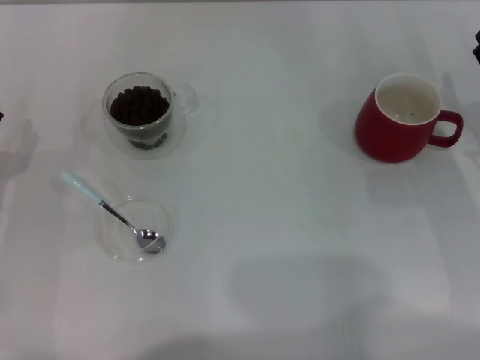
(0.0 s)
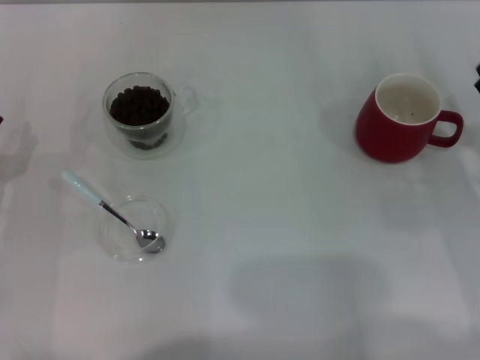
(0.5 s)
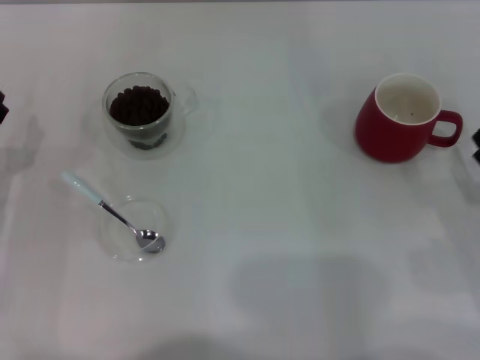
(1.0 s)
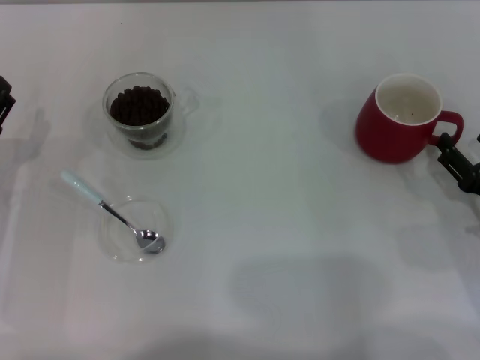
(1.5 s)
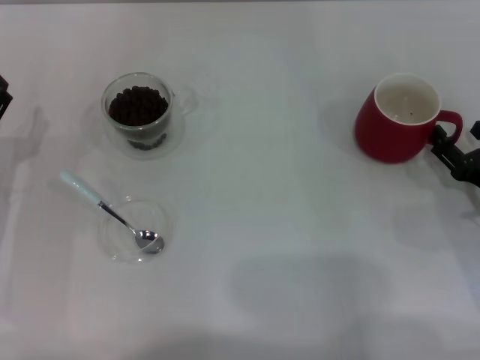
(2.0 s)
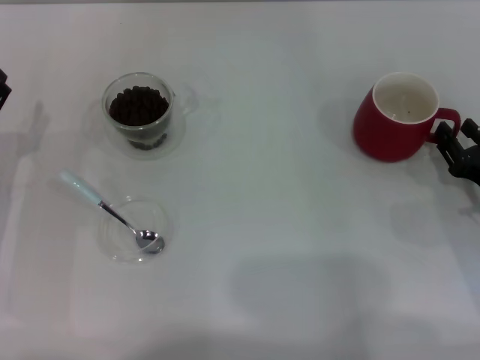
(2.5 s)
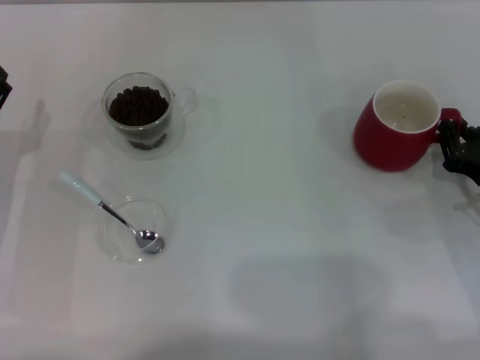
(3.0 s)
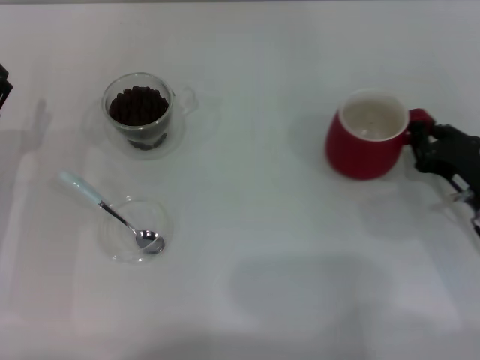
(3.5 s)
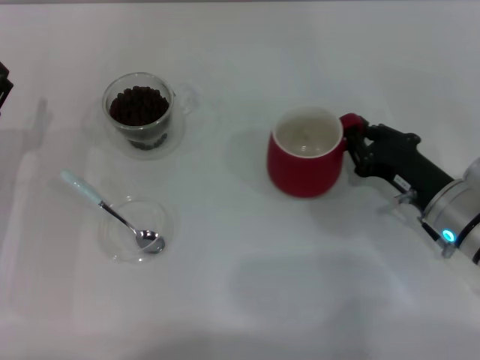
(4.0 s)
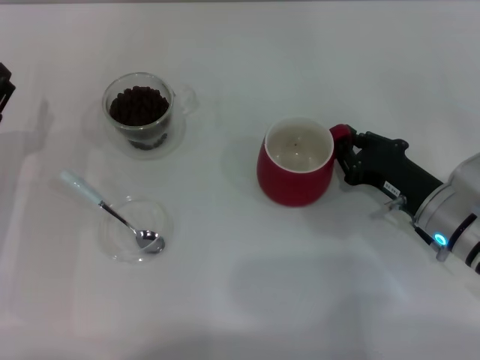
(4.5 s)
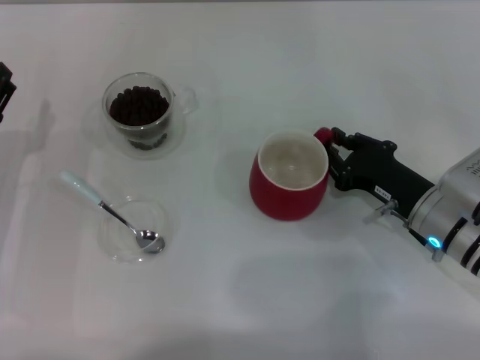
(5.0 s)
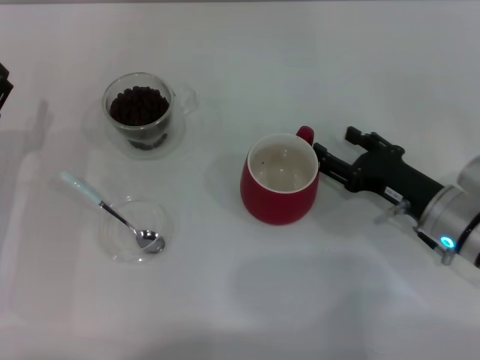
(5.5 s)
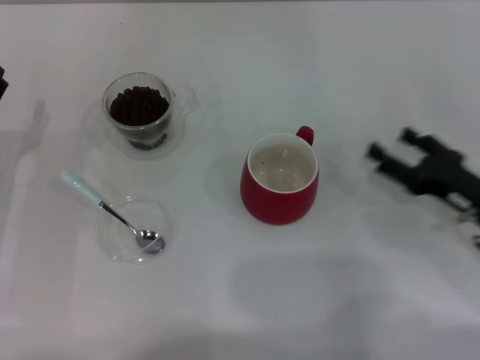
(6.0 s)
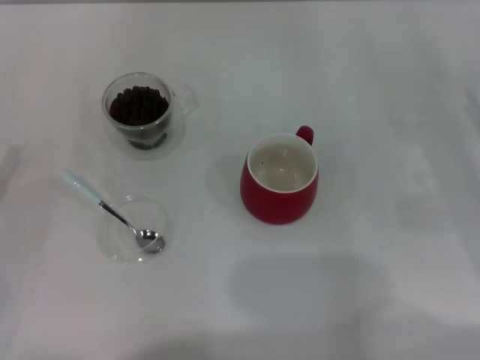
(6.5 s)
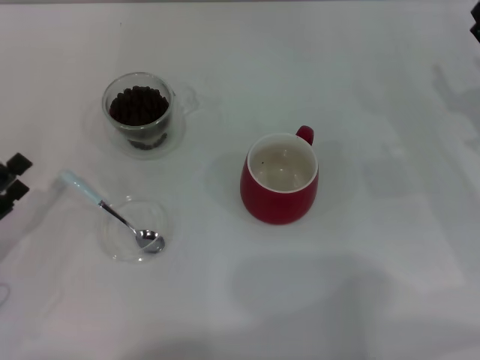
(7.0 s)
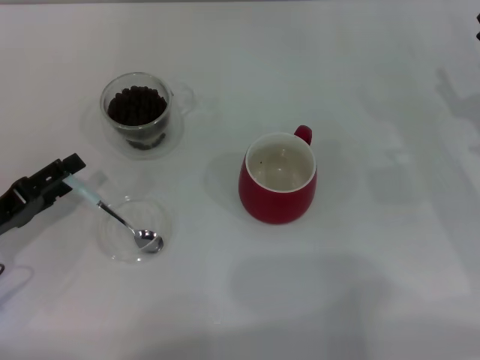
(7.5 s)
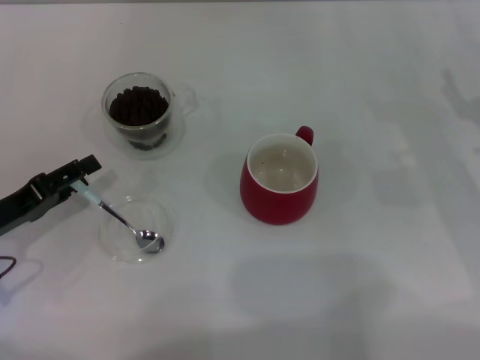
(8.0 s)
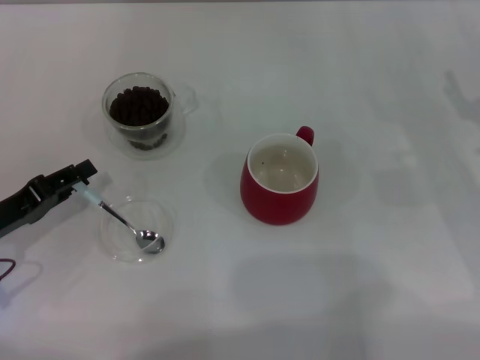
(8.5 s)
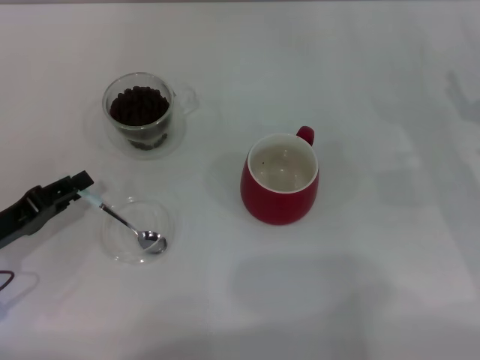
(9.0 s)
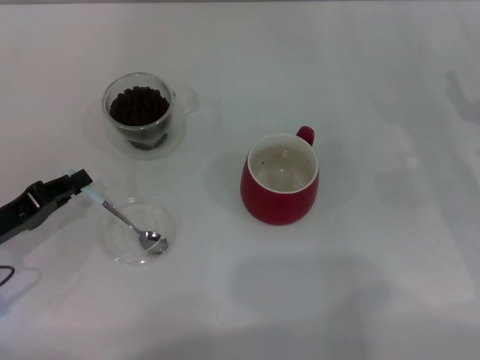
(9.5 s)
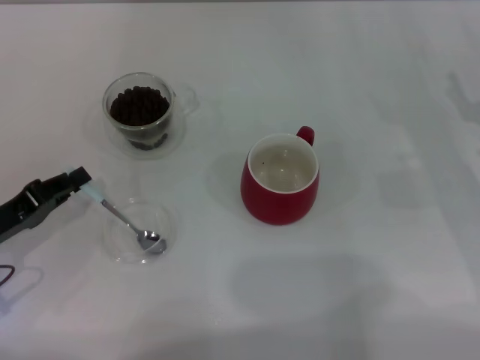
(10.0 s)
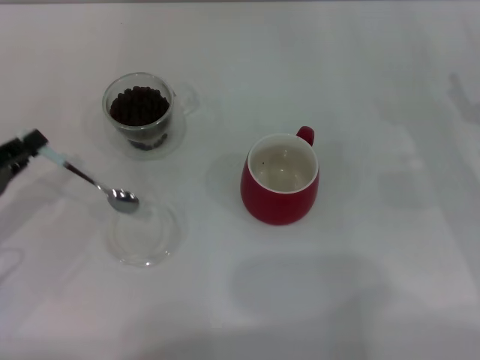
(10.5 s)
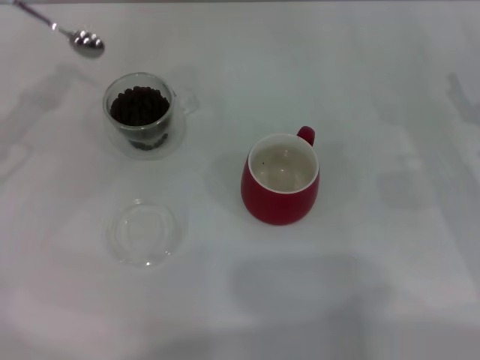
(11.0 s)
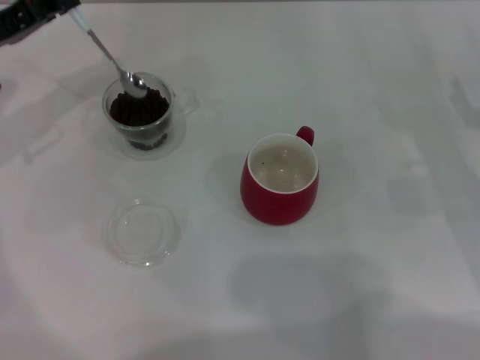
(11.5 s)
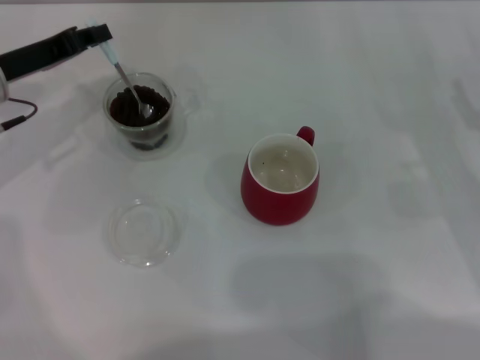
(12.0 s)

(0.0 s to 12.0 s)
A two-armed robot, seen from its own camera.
Task of the whole recording: Use a blue spoon to take out the coffee beans from the glass and pour them into the red cup.
Step, 0.0 s - 5.5 s: Move the cup to the center of view with the left gripper.
Step, 6.0 s - 10.0 s: Pick up the spoon with the right gripper.
0.0 s - 2.0 s: The right gripper goes some 5 cm backward.
2.0 s - 4.0 s: The right gripper travels to the left by roughly 10 cm, and closes.
4.0 s - 6.0 s: The right gripper heads to the right, covering roughly 5 cm, and opens.
6.0 s - 8.0 s: The right gripper shifts by about 10 cm.
8.0 s - 10.0 s: The left gripper closes up.
10.0 s - 12.0 s: The left gripper is displaced forward and upward by about 15 cm.

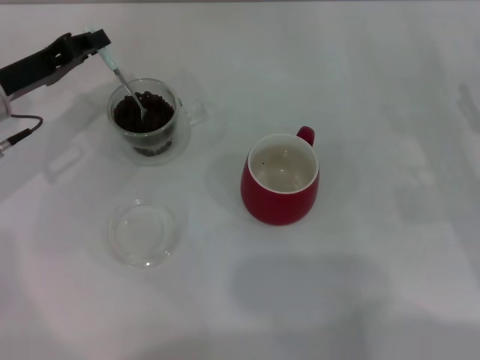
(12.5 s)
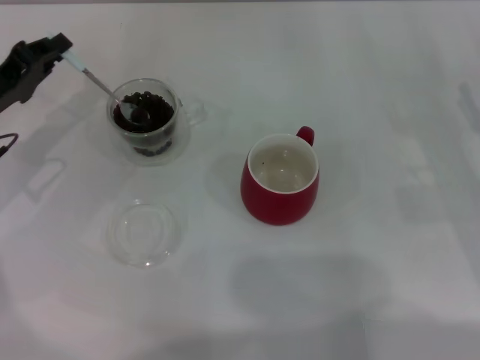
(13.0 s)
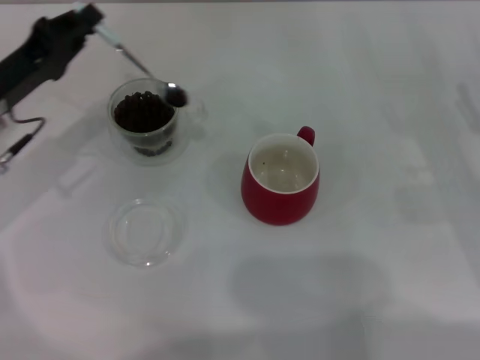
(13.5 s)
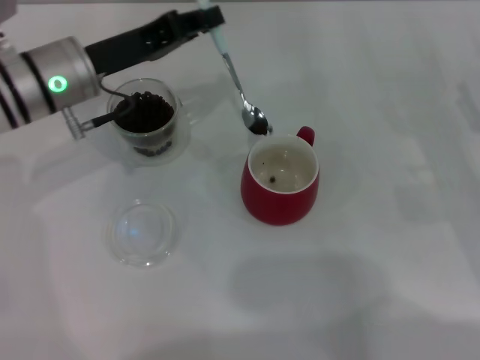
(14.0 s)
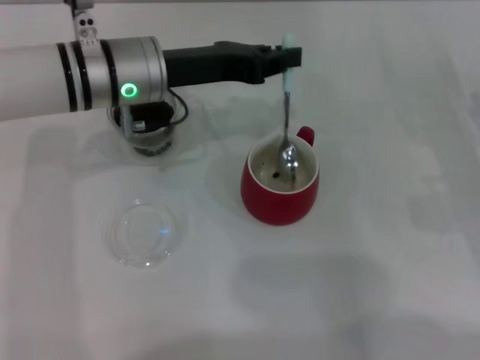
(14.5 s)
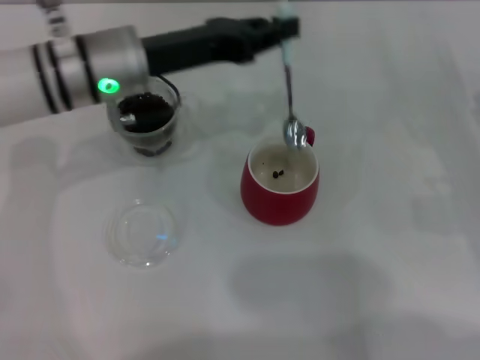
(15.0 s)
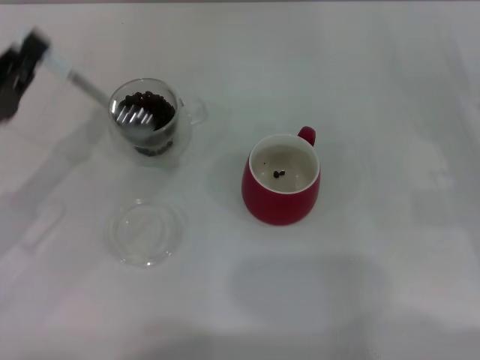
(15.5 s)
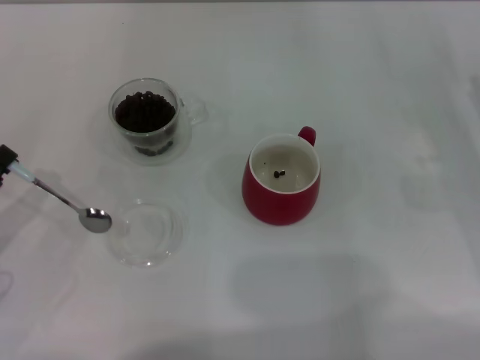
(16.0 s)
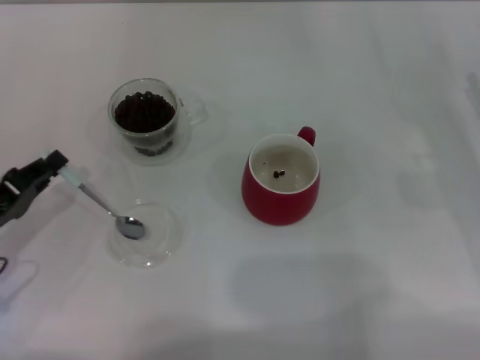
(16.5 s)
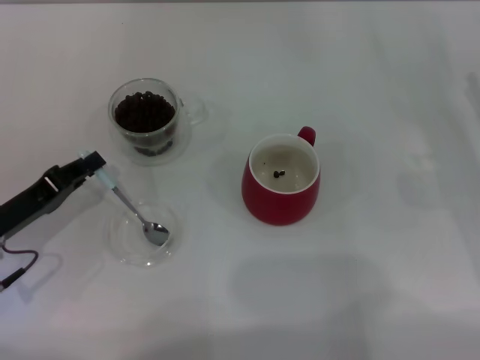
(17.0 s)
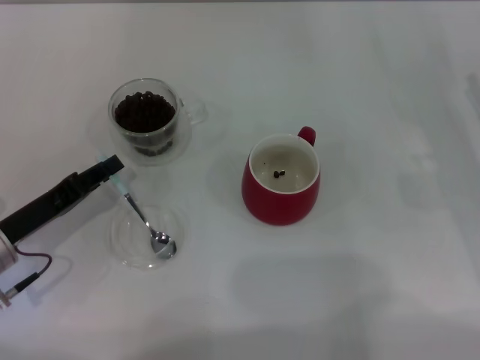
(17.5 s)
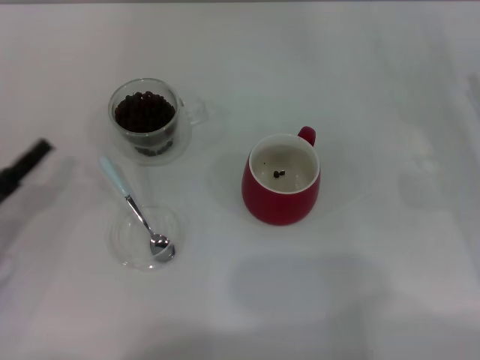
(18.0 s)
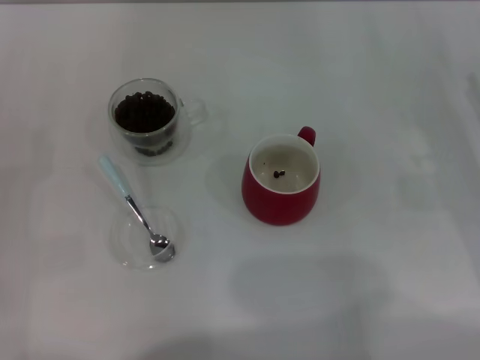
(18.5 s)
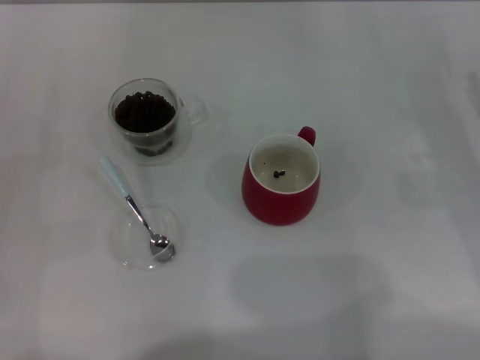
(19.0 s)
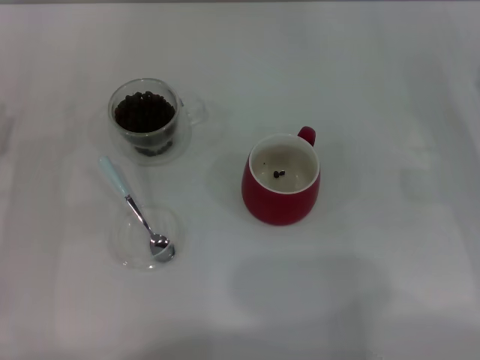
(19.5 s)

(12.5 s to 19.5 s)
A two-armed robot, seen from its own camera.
Task of the whole recording: Use a blue spoon to take out the coffee beans from the glass and pour them into the red cup.
12.5 s - 14.5 s: The left gripper goes about 15 cm to the right.
14.5 s - 16.0 s: The left gripper moves to the left, backward and downward, roughly 30 cm.
16.0 s - 17.5 s: The left gripper heads to the right, covering some 5 cm.
17.5 s - 19.5 s: The left gripper shifts by approximately 5 cm, and opens up.

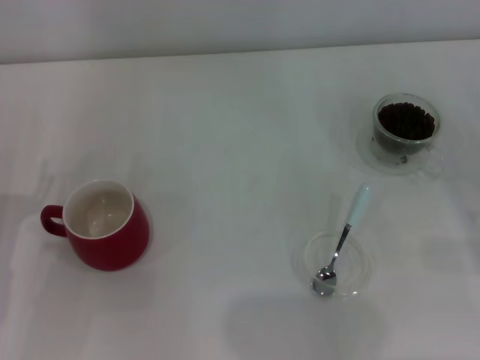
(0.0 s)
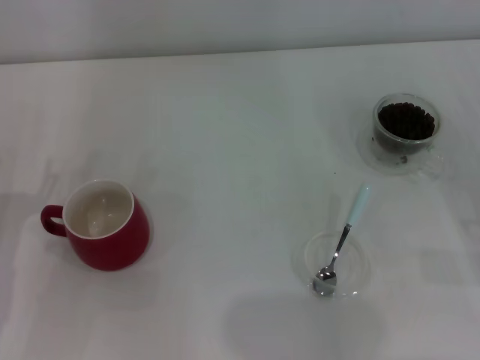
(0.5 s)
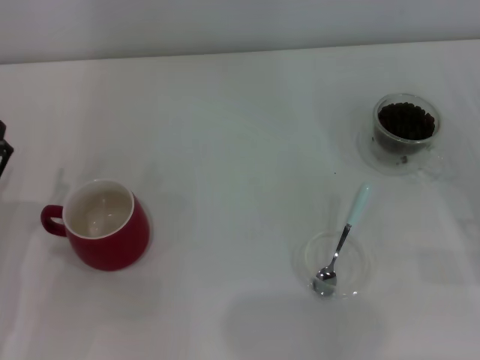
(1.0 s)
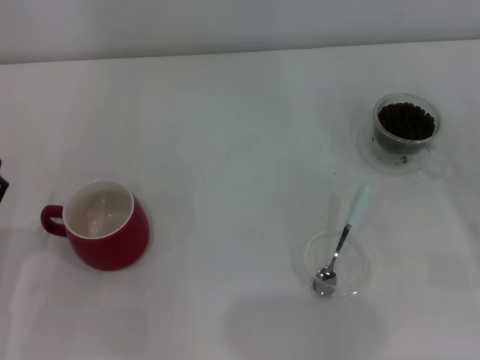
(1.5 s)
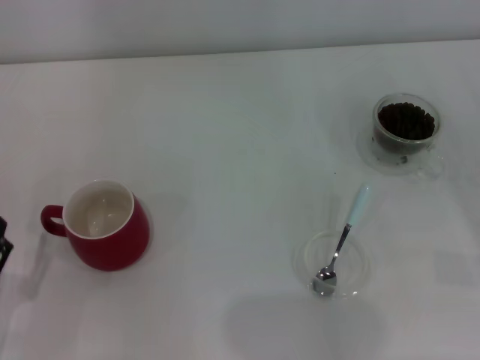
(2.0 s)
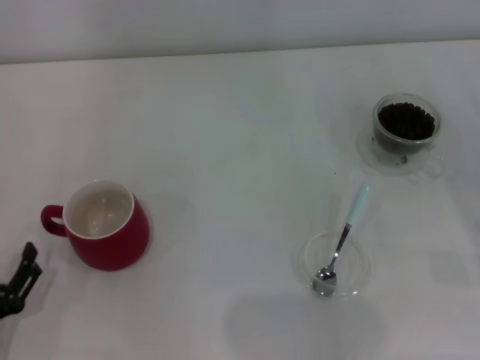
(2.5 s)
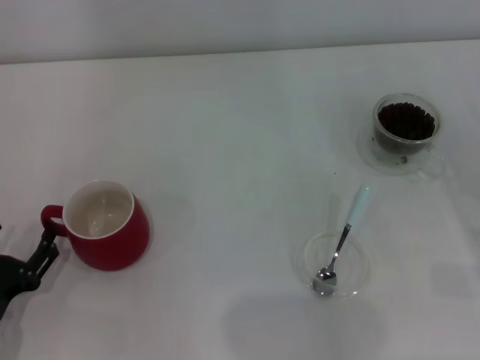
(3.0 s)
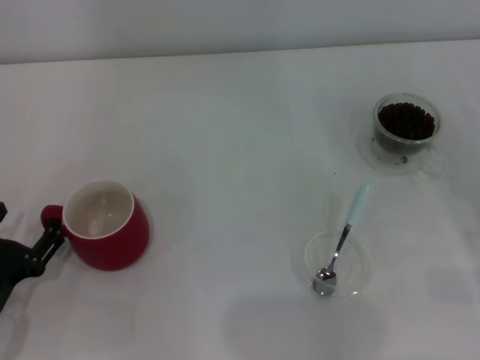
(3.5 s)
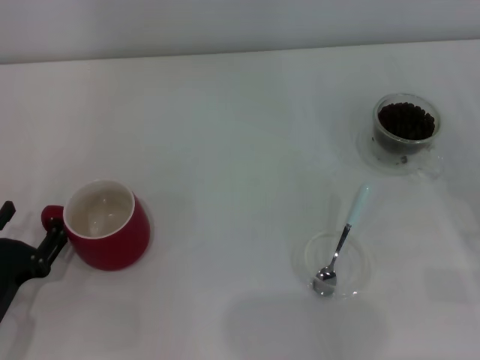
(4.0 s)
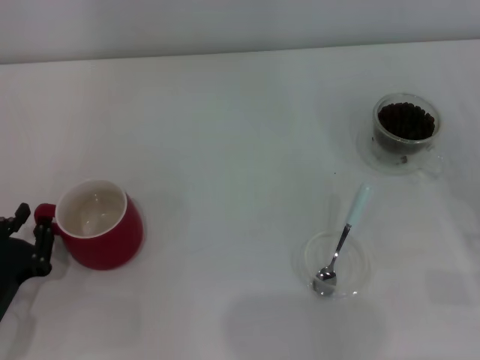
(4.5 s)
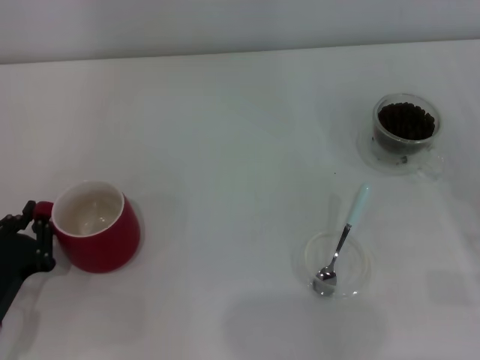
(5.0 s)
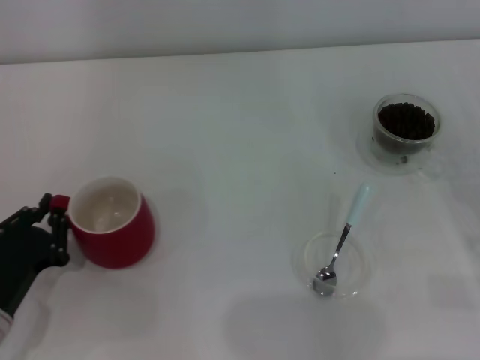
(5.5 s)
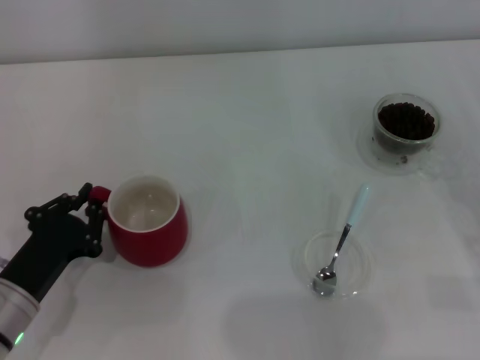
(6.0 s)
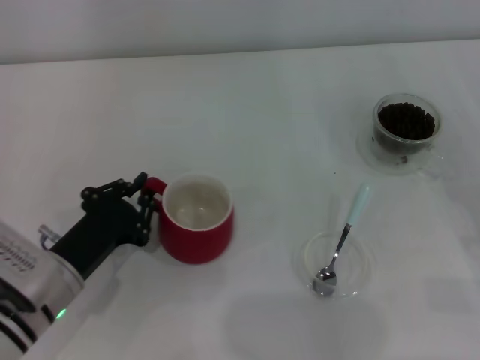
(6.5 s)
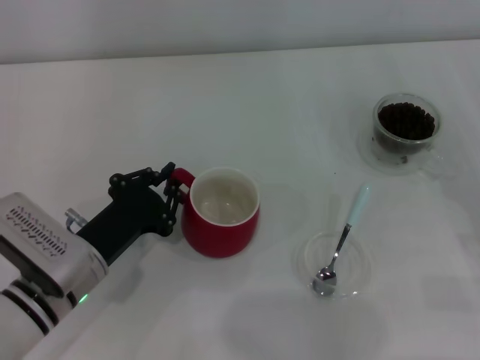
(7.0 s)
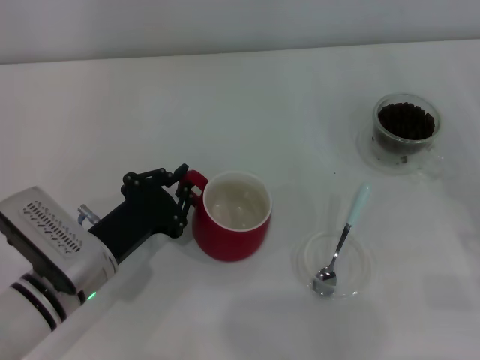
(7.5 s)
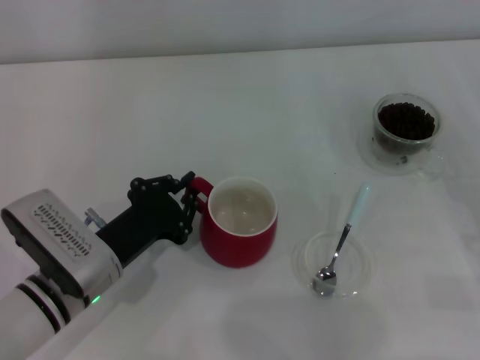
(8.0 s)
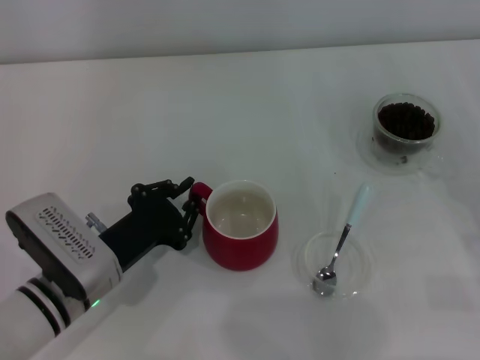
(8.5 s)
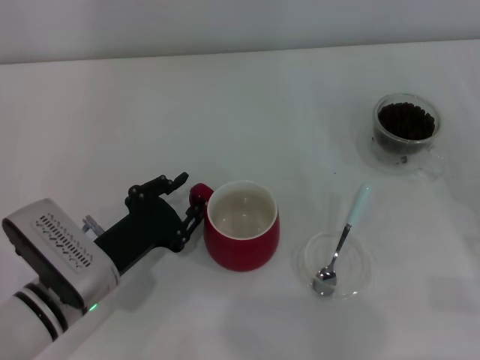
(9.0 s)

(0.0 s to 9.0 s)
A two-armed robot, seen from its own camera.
Task of the whole recording: Use a blue spoon to take out the coffee beans from the glass and pour them into the red cup.
2.0 s - 4.5 s: The left gripper travels forward by approximately 5 cm, and closes up.
4.5 s - 7.0 s: The left gripper travels to the right and forward by roughly 10 cm, and closes its fingers.
7.0 s - 9.0 s: The grippers make only small movements.
